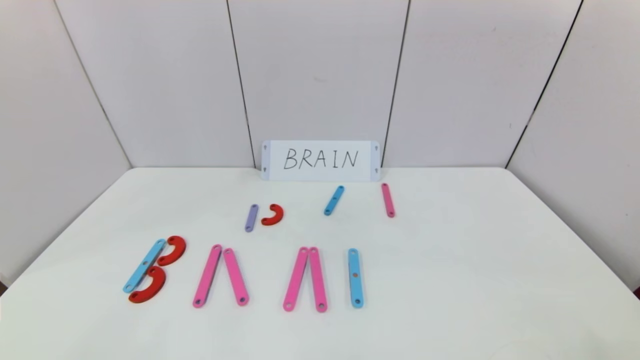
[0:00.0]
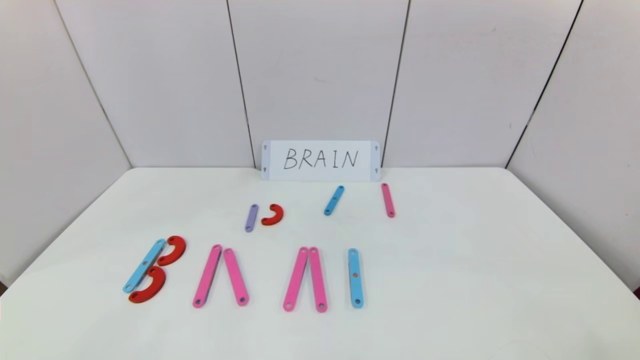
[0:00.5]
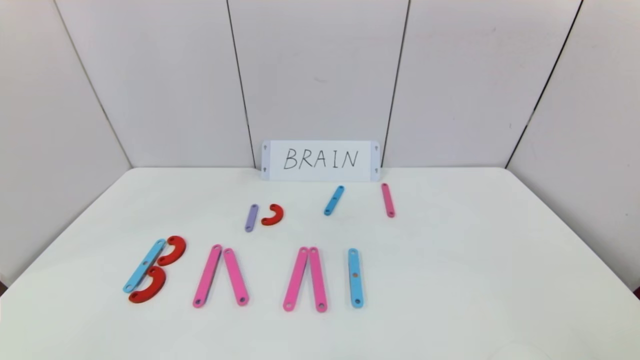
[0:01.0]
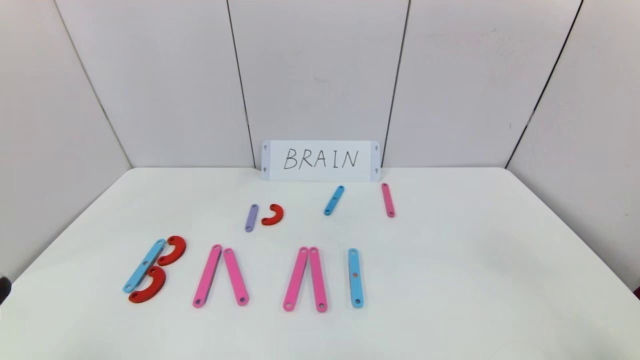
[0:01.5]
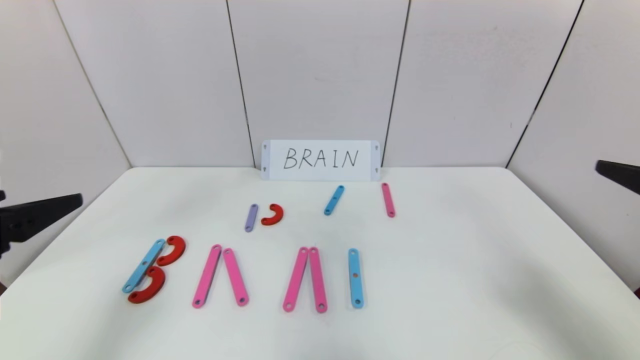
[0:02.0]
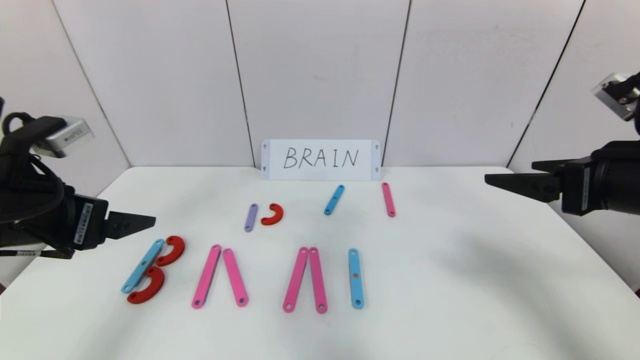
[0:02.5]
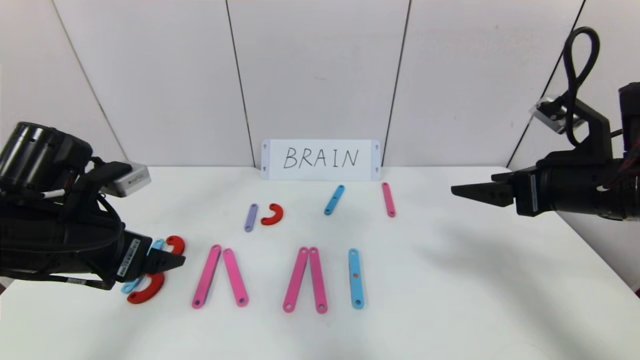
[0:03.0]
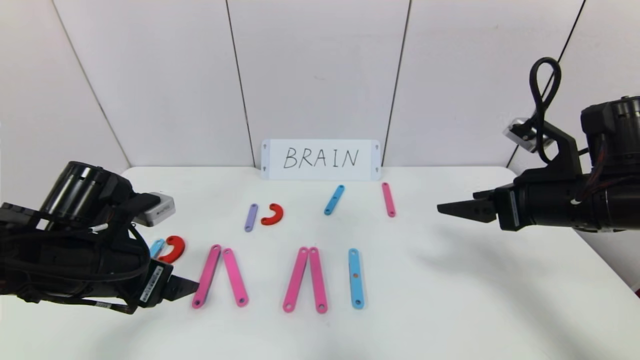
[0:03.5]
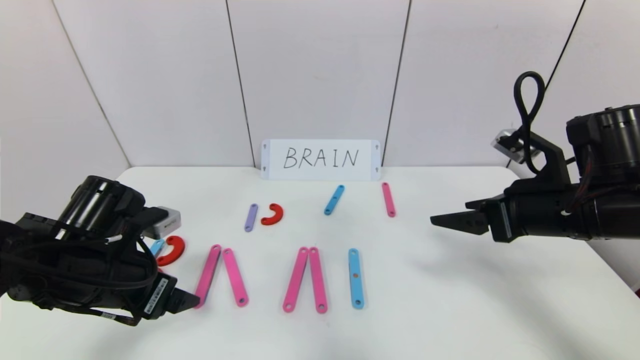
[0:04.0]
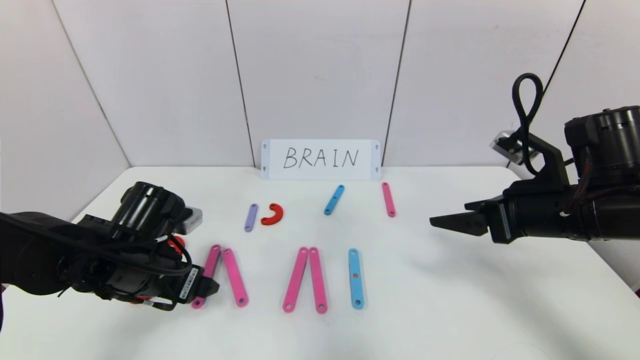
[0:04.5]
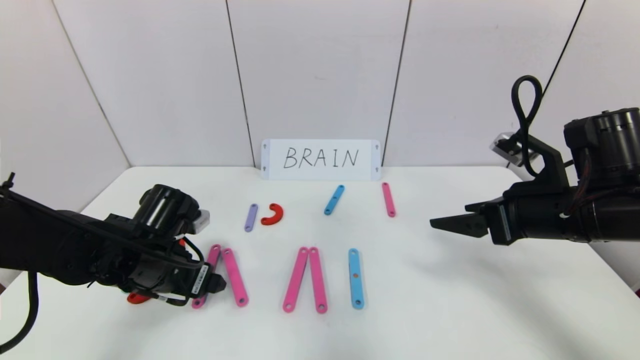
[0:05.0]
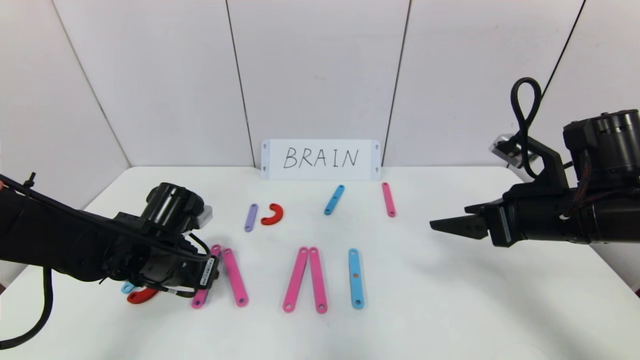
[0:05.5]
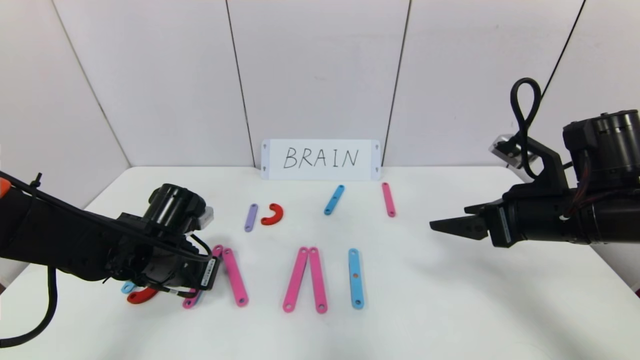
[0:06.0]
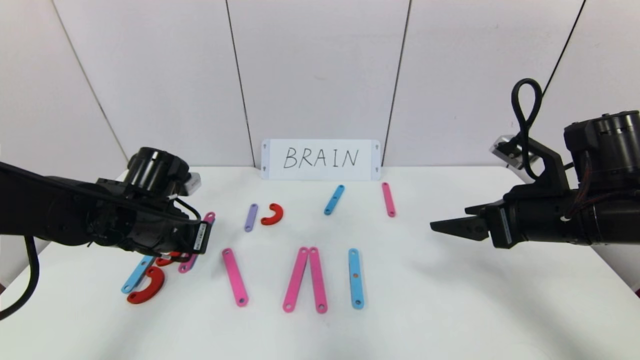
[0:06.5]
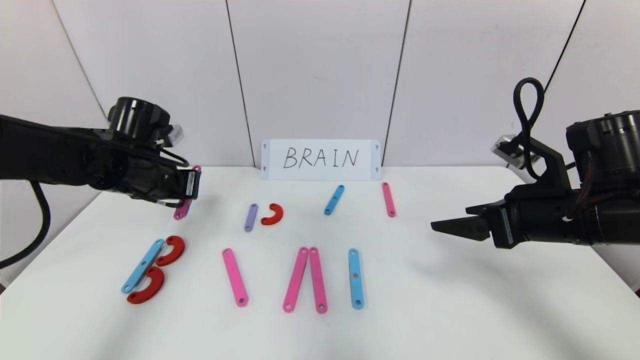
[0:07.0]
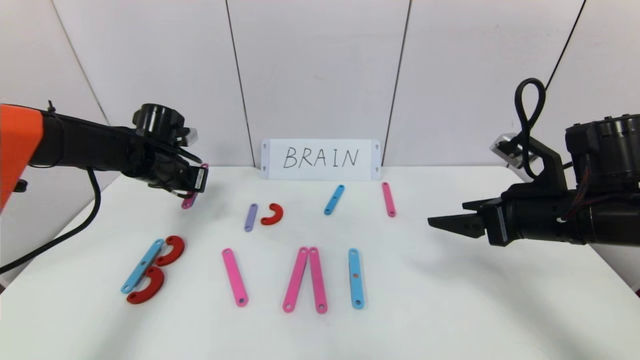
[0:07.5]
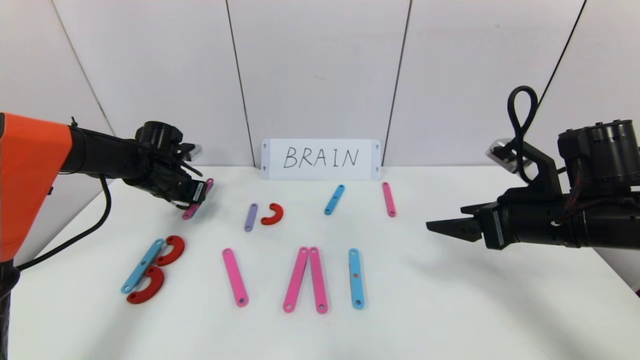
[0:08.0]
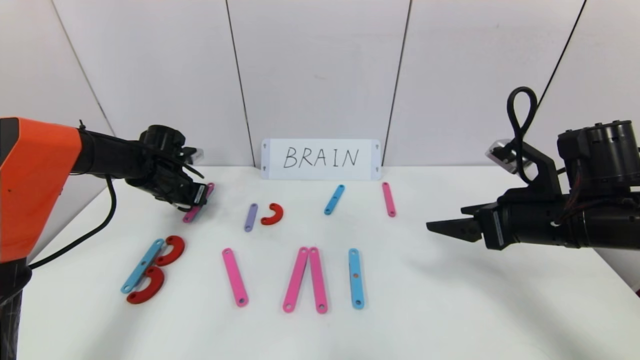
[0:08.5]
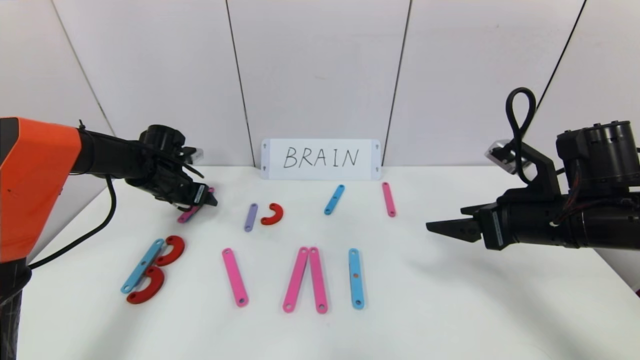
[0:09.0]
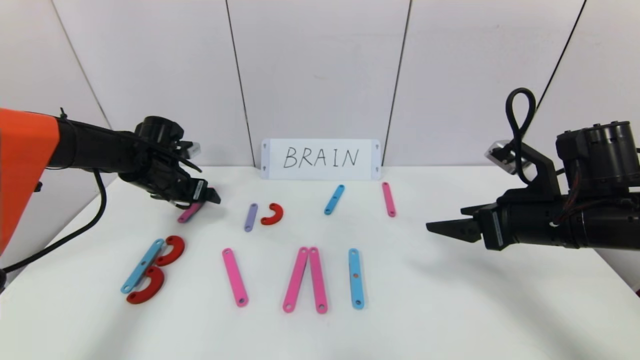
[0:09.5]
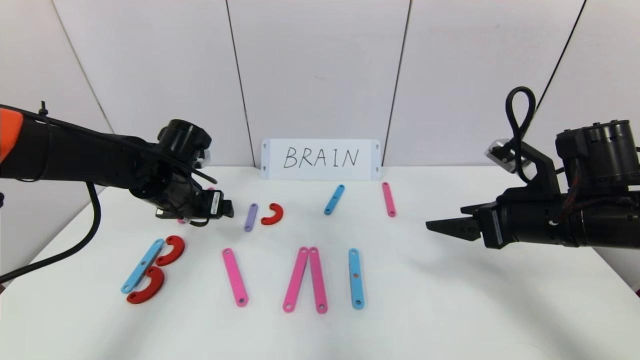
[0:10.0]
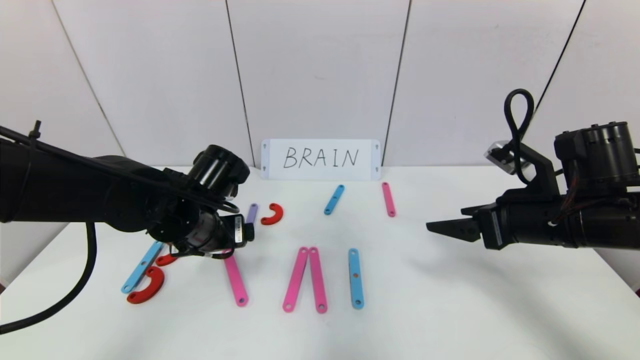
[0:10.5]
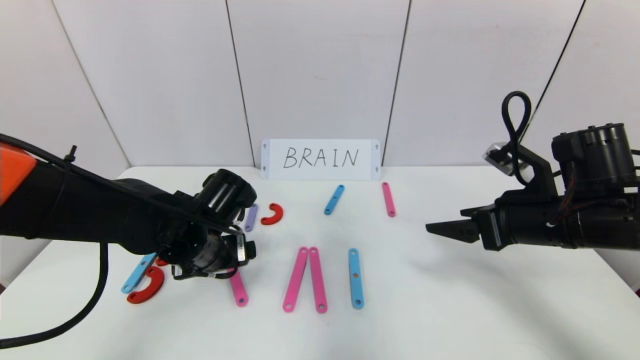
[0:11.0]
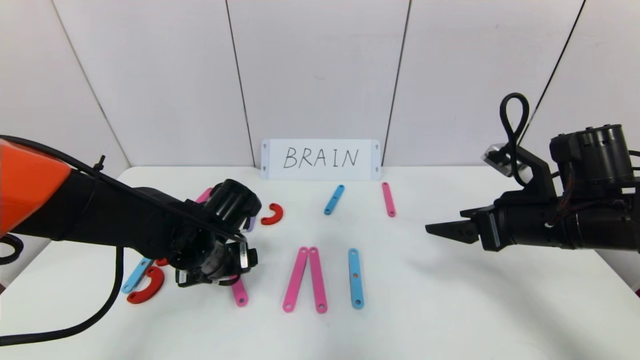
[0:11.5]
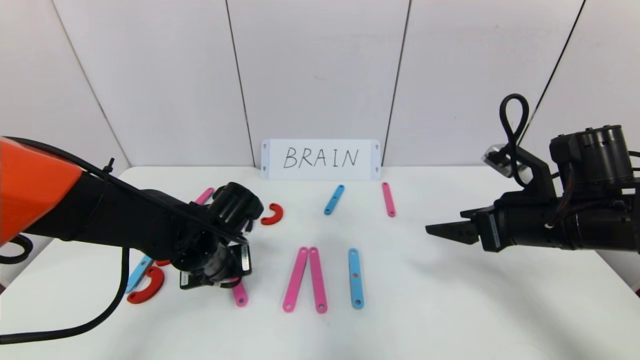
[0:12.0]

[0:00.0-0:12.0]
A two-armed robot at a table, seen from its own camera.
Task of the whole recording: rearrange the word baai as brain.
0:00.0 to 0:02.0: Both grippers move upward and forward, approximately 25 cm.
0:02.0 to 0:04.0: The right gripper travels forward, downward and to the left by about 15 cm; the left gripper travels downward and forward by about 15 cm.
0:04.0 to 0:06.0: The left gripper heads forward, covering about 5 cm, and closes its fingers.
0:06.0 to 0:08.0: The left gripper moves forward and to the left, roughly 20 cm.
0:08.0 to 0:10.0: The left gripper goes roughly 15 cm backward and to the right, and opens up.
0:10.0 to 0:12.0: The left gripper goes roughly 10 cm downward, backward and to the right, and closes up.

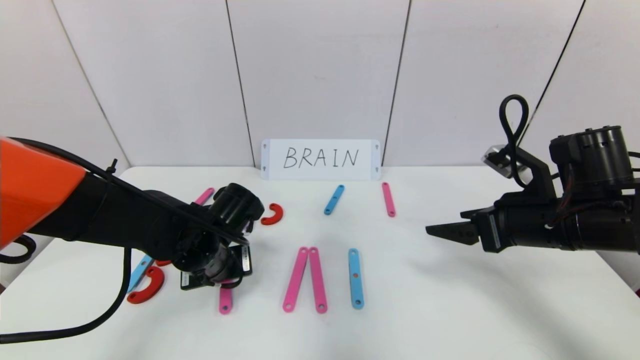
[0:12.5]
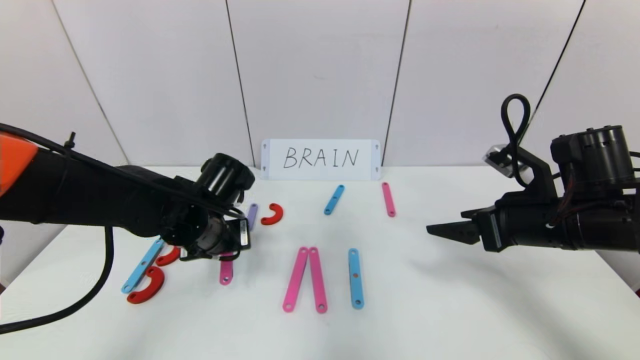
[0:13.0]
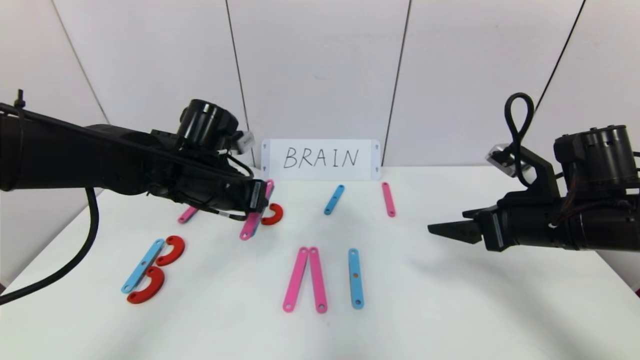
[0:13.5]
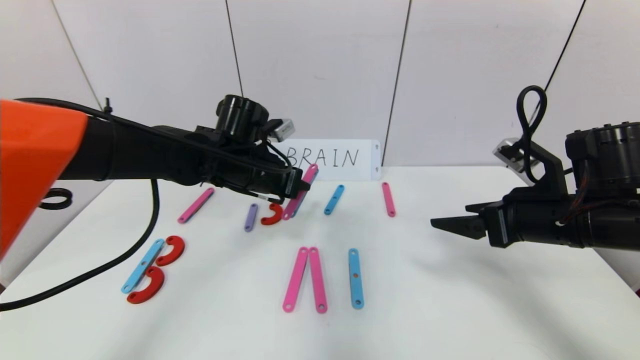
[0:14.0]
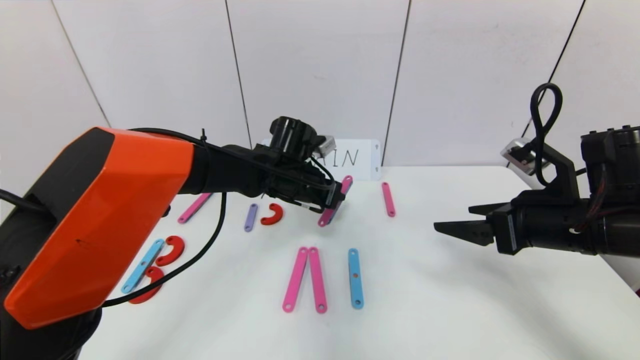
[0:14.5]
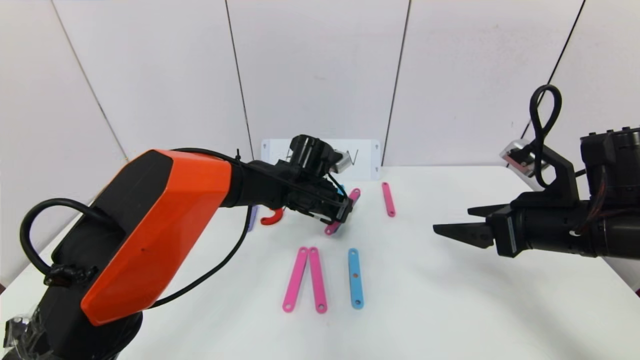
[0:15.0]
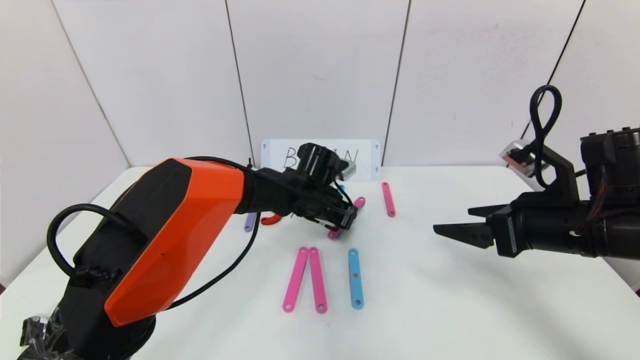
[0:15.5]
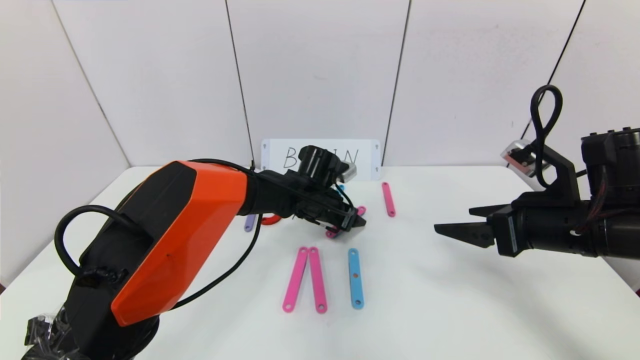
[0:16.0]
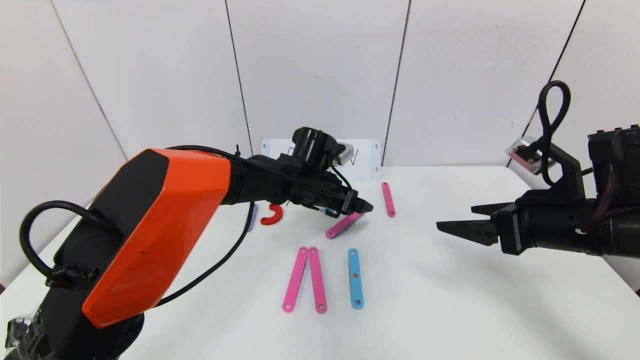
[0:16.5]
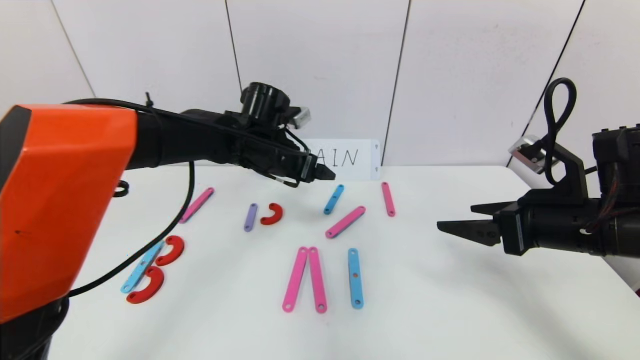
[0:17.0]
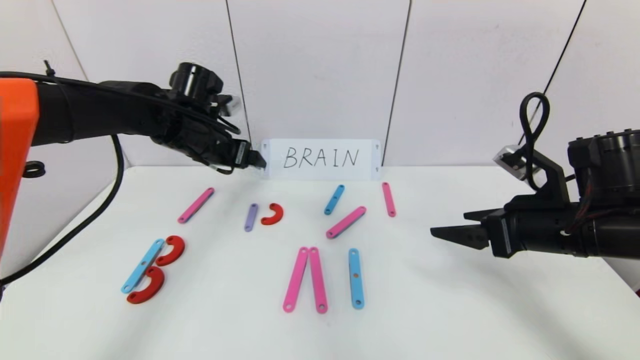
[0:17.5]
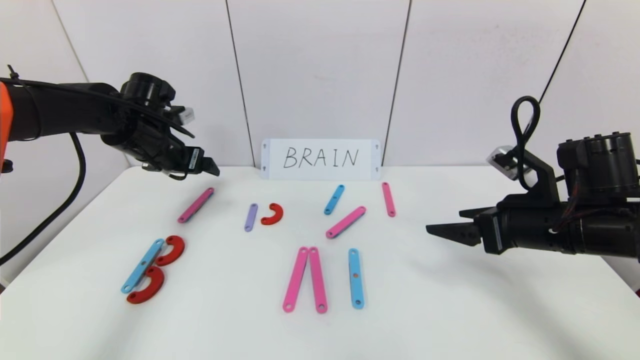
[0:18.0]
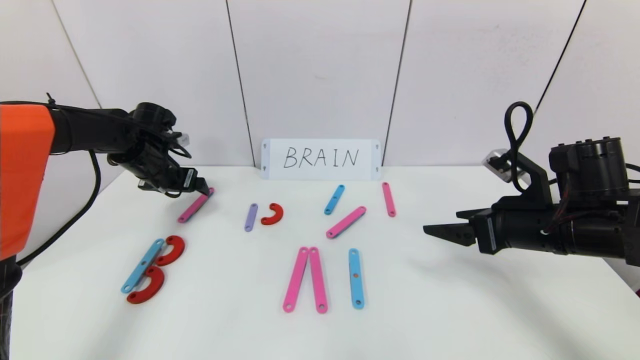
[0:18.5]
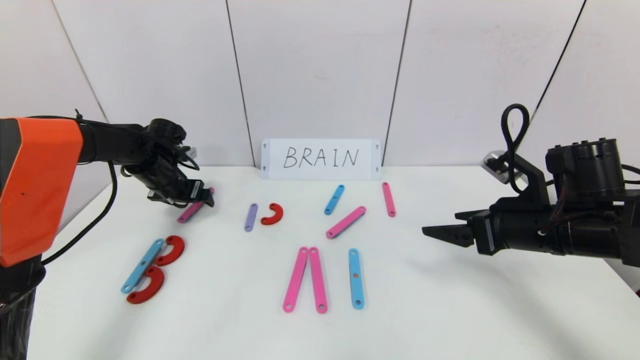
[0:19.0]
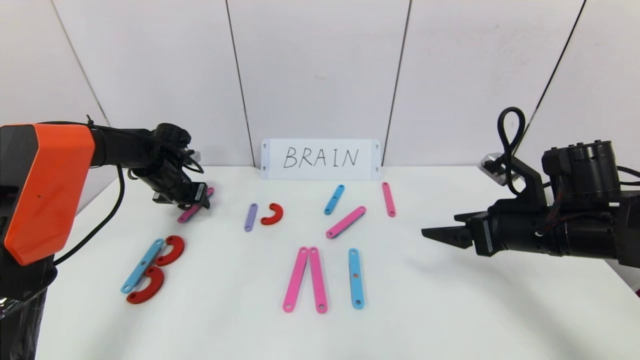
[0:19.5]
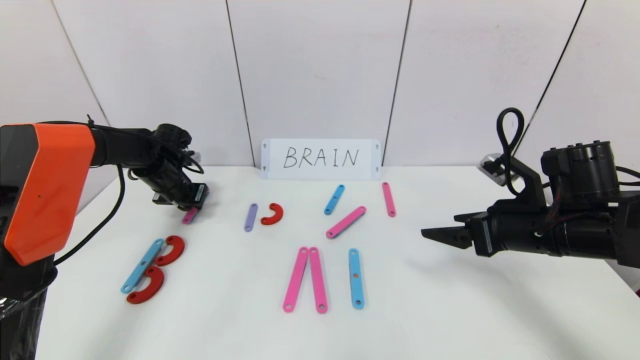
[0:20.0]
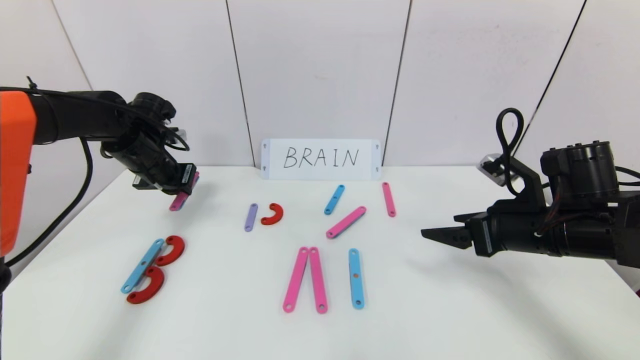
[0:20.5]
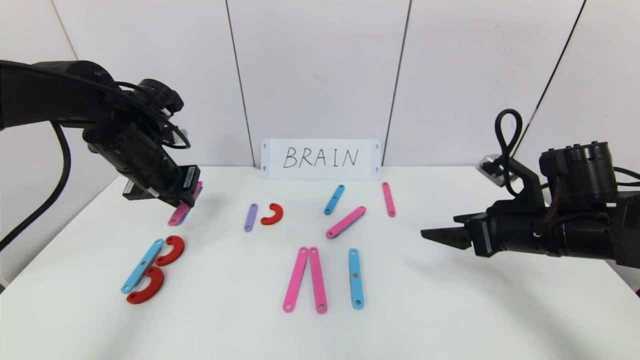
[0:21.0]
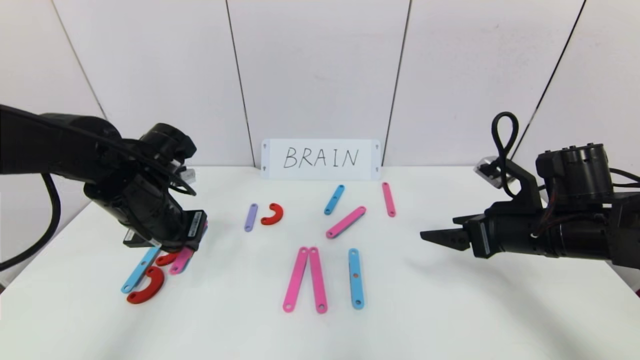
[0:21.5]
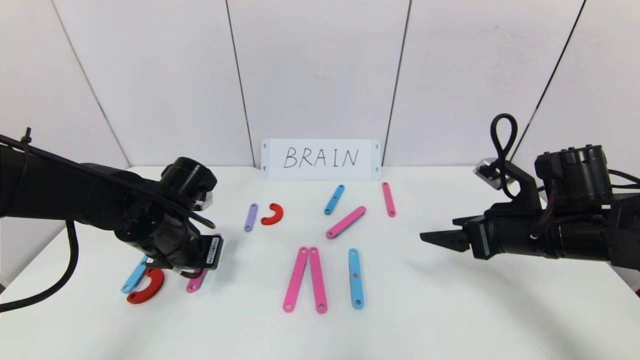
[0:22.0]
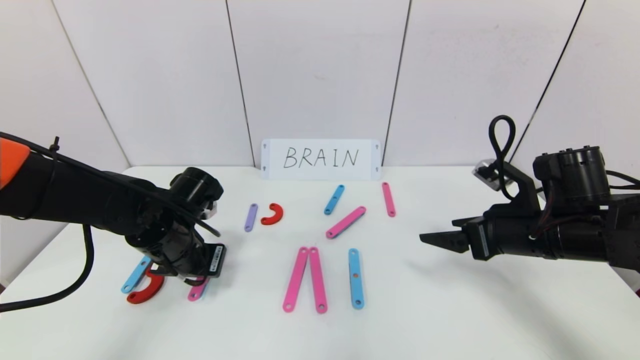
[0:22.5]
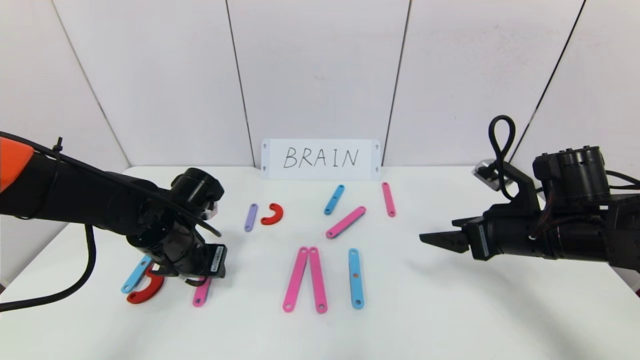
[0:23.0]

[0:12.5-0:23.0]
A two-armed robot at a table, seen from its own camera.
Task of the whole recording: rearrange the word baai as brain.
Step, 0:12.5 to 0:15.5: Disassemble the second character A.
0:12.5 to 0:14.5: The left gripper heads forward, to the right and upward, covering approximately 15 cm.
0:14.5 to 0:16.5: The left gripper opens up.
0:16.5 to 0:19.0: The left gripper goes approximately 30 cm to the left.
0:19.0 to 0:21.0: The left gripper moves backward, upward and to the right, roughly 15 cm, and closes up.
0:21.0 to 0:23.0: The left gripper is displaced downward and backward by roughly 10 cm, and opens its fingers.
